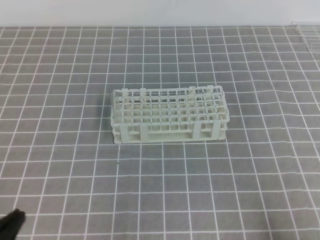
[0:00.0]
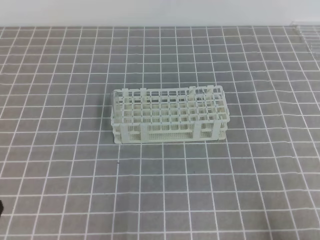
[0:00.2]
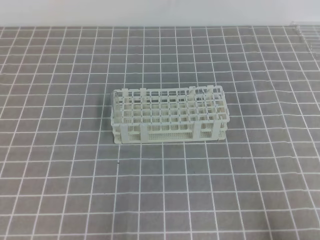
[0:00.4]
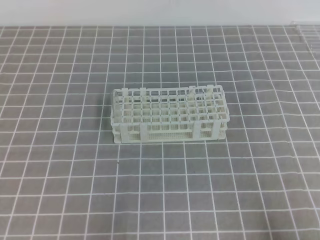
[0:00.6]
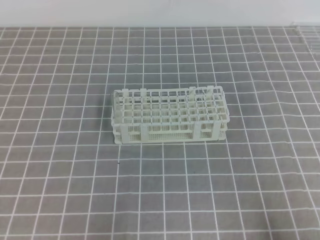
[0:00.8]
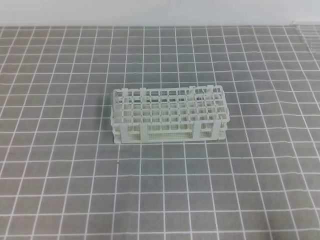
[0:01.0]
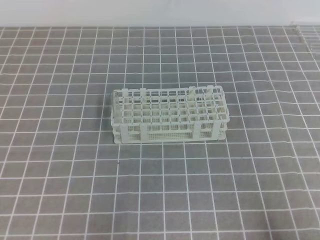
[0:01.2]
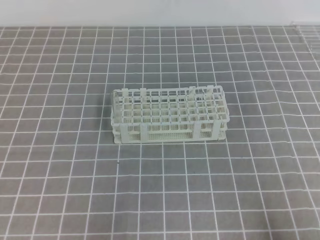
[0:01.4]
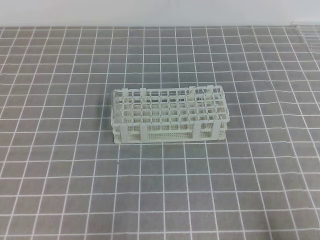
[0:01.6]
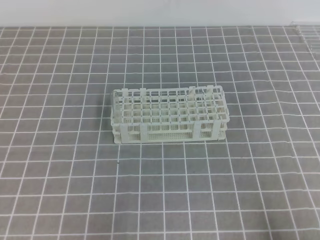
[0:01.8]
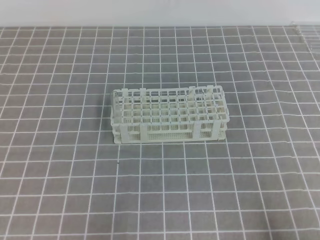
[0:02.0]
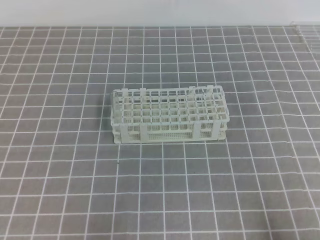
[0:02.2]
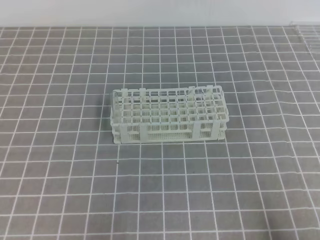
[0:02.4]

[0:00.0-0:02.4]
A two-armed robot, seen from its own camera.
0:01.2 to 0:02.4: Both grippers stay about where they are.
